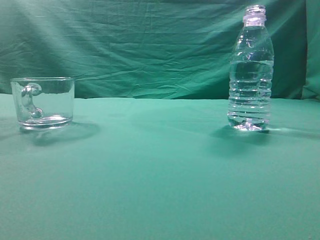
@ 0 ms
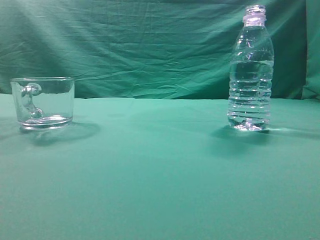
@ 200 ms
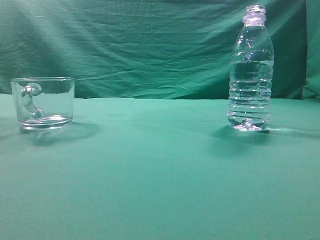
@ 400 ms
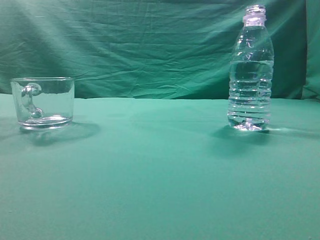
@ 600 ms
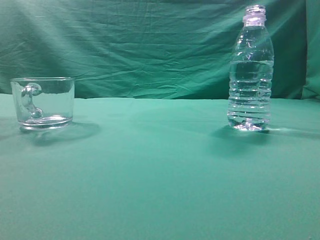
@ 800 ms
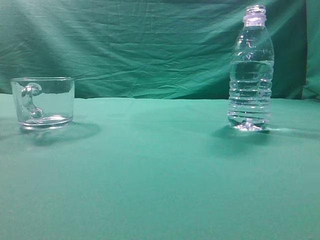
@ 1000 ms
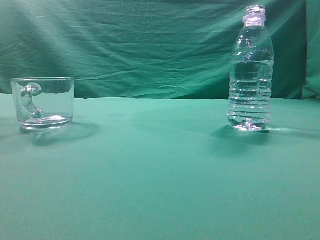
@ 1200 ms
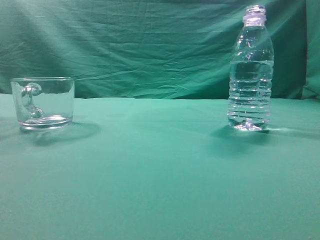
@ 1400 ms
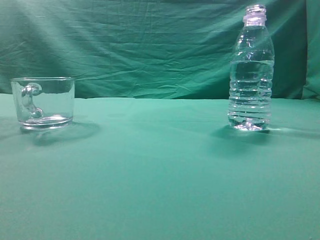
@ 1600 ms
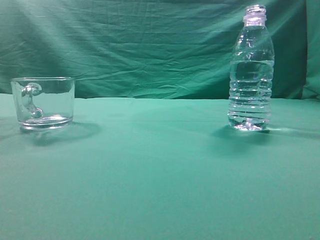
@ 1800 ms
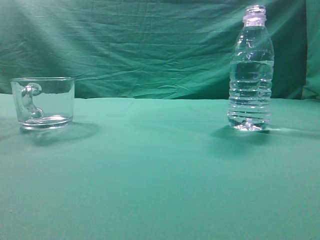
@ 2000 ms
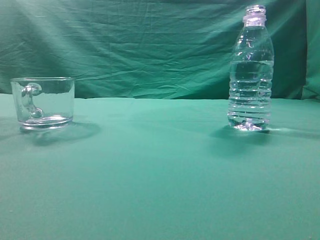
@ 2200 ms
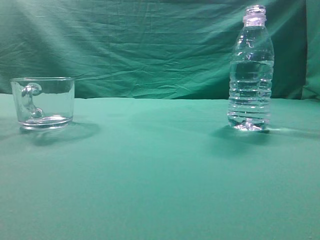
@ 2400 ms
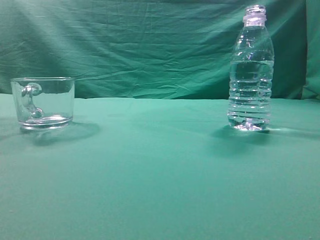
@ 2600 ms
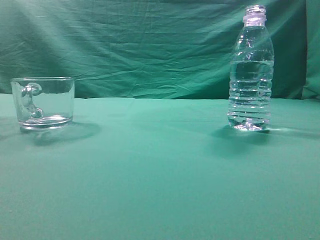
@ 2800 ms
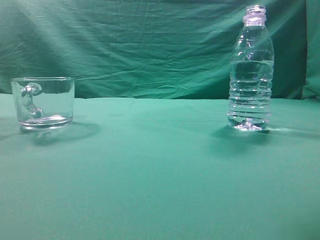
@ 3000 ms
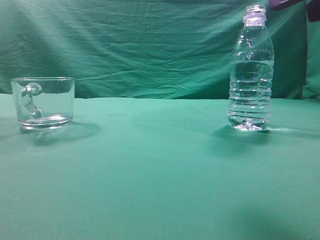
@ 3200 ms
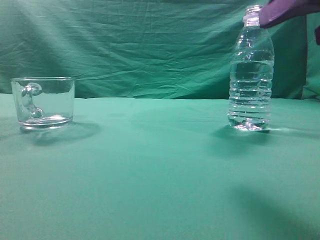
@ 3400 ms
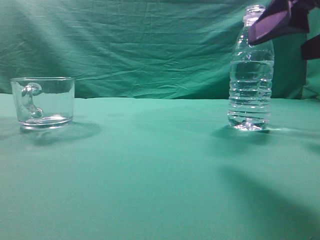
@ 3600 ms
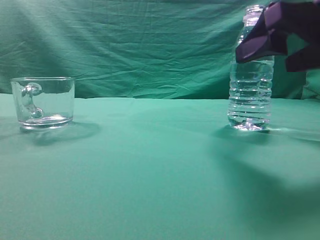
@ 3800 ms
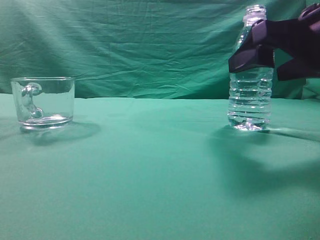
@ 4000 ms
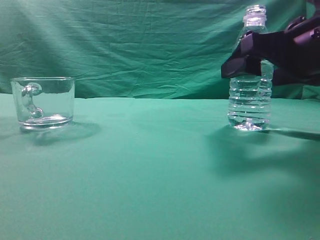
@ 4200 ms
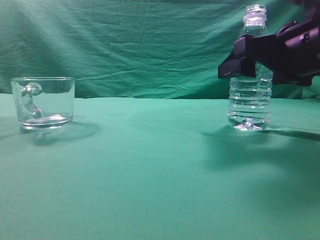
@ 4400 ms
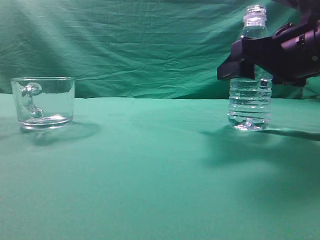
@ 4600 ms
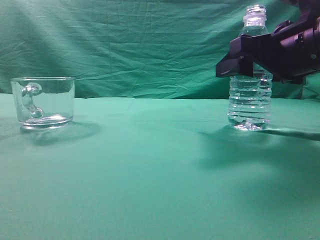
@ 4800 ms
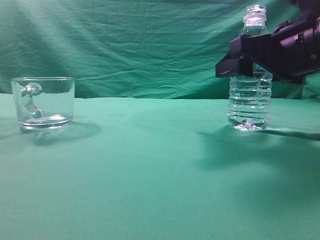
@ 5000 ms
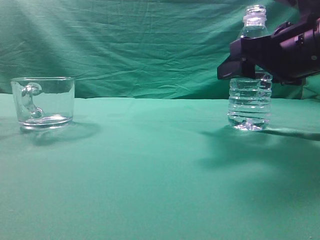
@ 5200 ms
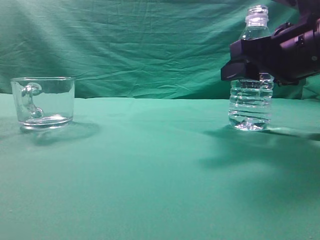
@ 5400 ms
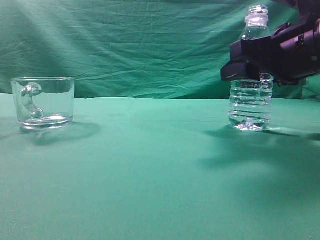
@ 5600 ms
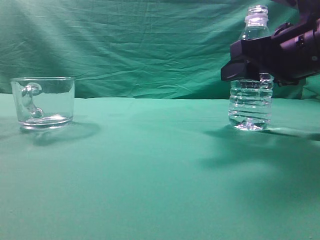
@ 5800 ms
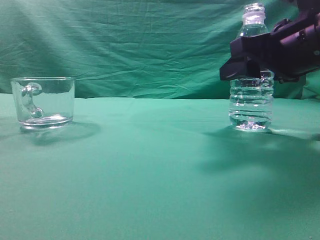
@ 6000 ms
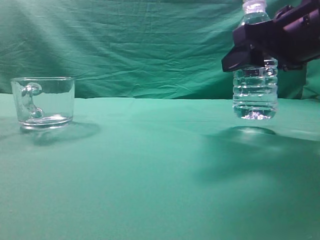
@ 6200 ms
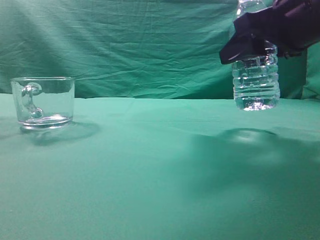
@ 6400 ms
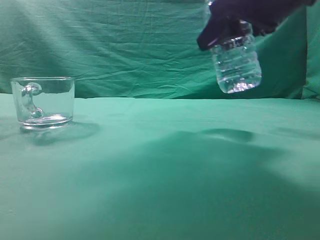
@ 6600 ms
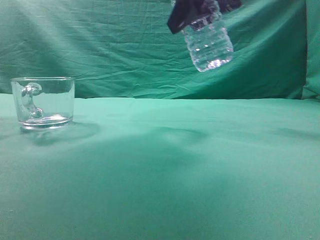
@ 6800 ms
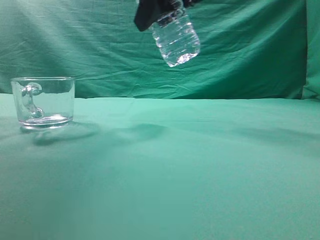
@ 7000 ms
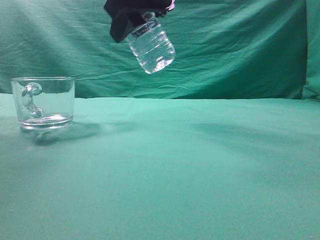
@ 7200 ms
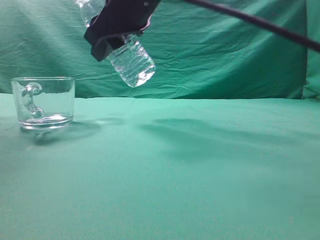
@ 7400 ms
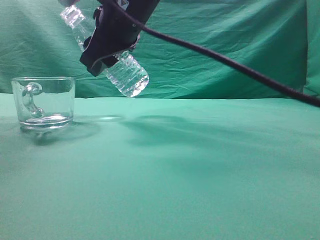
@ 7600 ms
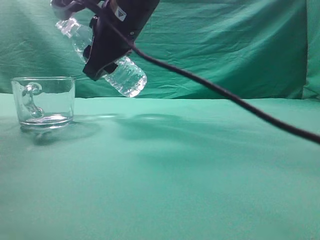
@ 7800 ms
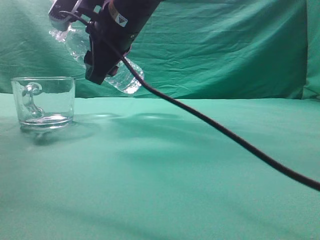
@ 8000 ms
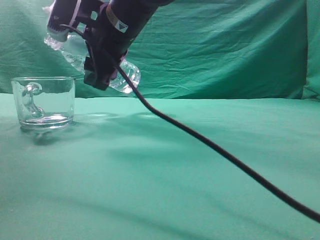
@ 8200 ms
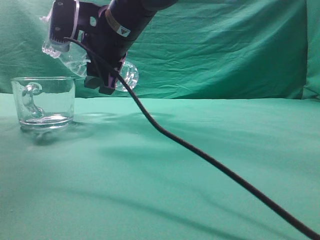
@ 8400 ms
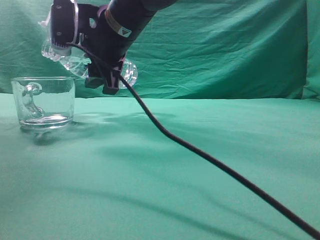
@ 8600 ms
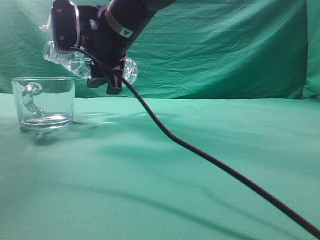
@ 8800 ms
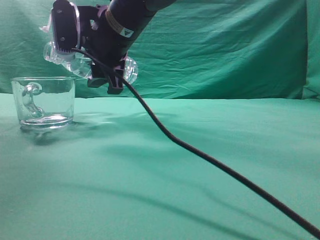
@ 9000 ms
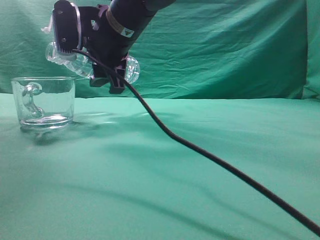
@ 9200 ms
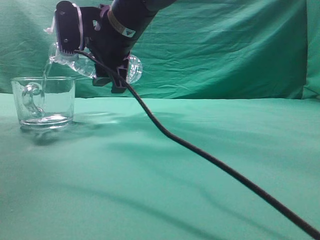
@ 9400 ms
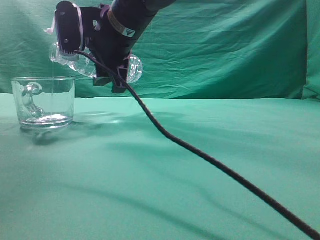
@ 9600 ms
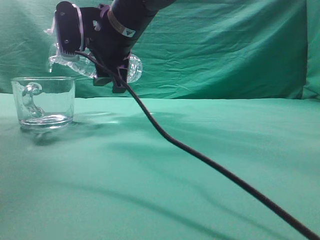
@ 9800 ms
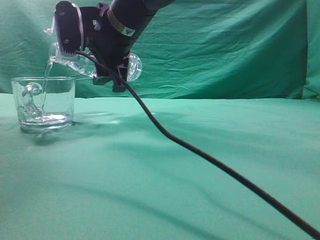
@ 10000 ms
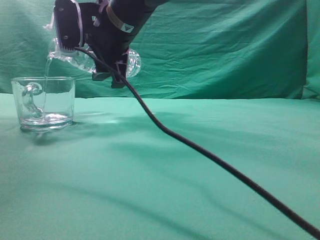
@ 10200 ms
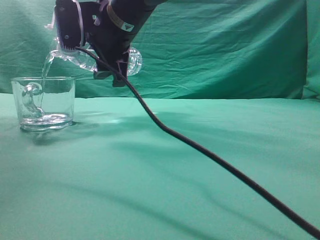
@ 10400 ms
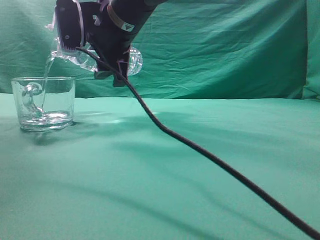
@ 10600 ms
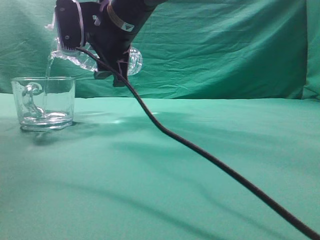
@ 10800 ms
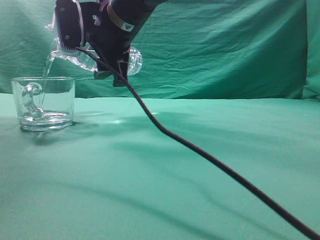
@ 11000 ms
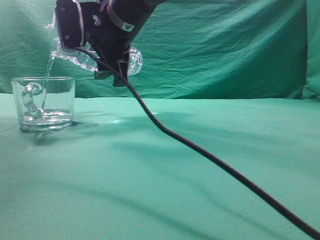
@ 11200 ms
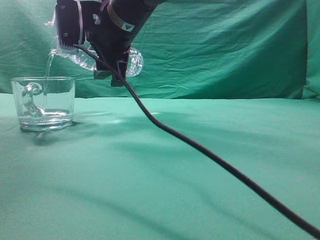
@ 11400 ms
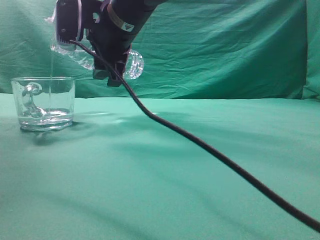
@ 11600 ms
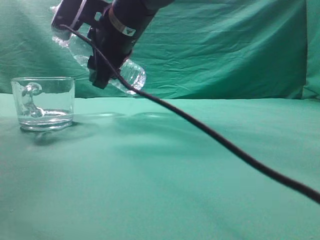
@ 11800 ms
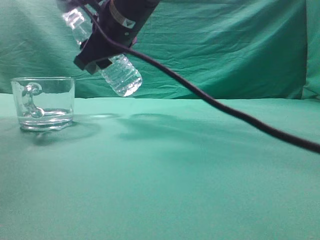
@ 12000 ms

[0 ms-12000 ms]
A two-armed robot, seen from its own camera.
Task of the whole recording: pick up the water bottle and pour the water in it into the glass.
Step, 0 ms to 6600 ms: Grasp the mineral water bottle.
Step, 6800 ms to 12000 ms: Pour water into the teacup.
3000 ms to 4400 ms: The right gripper moves forward and downward, approximately 15 cm, and opens up.
4400 ms to 6000 ms: The grippers move only a little.
6000 ms to 7600 ms: The right gripper goes roughly 25 cm to the left.
9000 ms to 10400 ms: The grippers make only small movements.

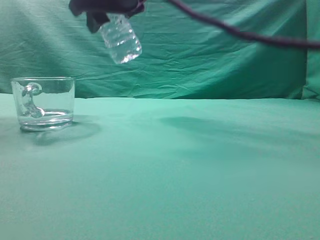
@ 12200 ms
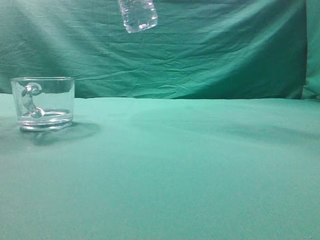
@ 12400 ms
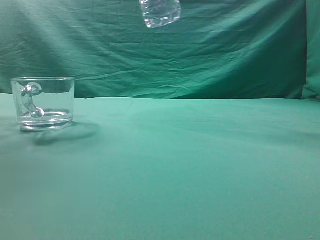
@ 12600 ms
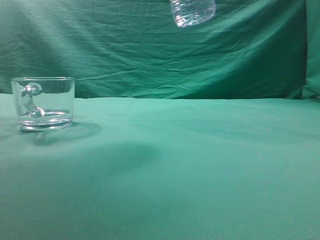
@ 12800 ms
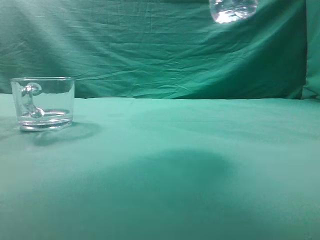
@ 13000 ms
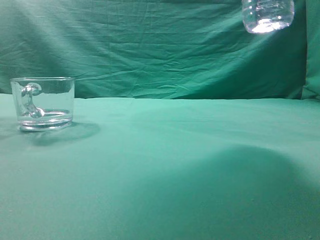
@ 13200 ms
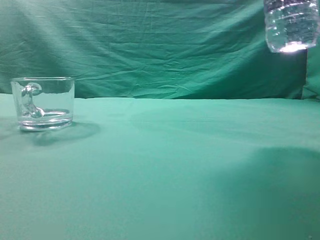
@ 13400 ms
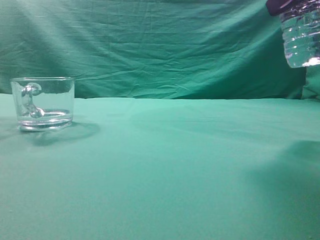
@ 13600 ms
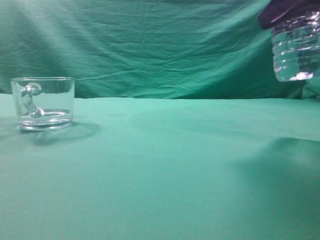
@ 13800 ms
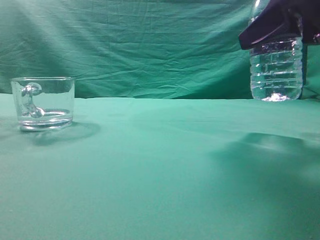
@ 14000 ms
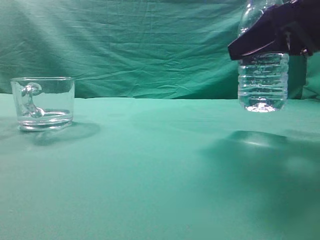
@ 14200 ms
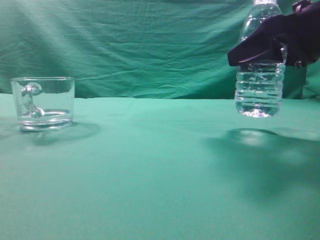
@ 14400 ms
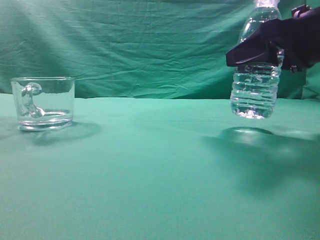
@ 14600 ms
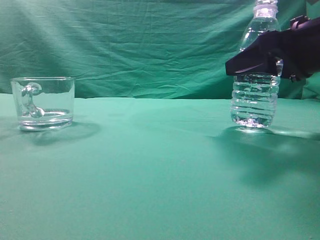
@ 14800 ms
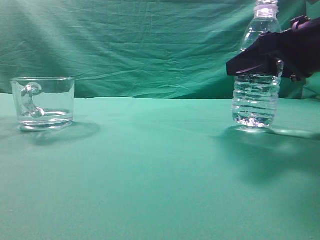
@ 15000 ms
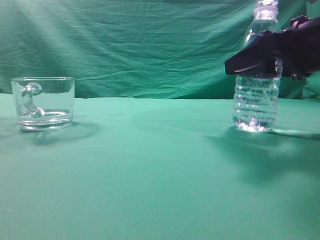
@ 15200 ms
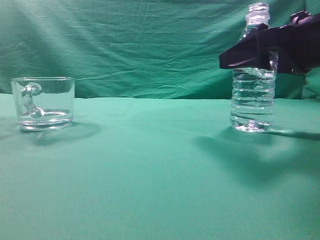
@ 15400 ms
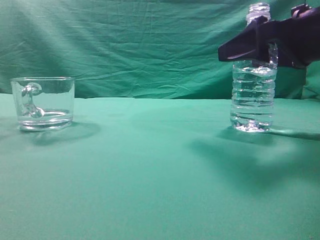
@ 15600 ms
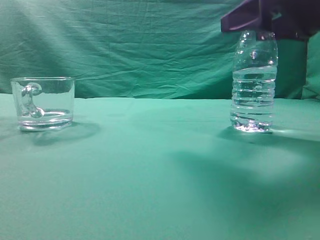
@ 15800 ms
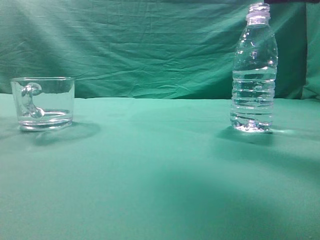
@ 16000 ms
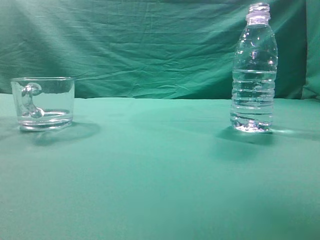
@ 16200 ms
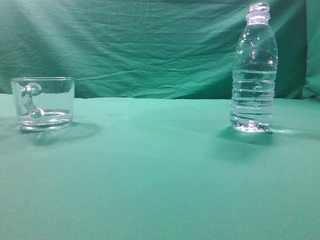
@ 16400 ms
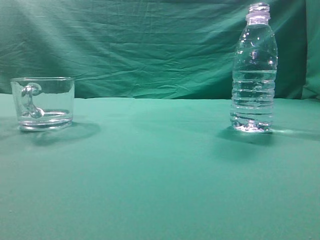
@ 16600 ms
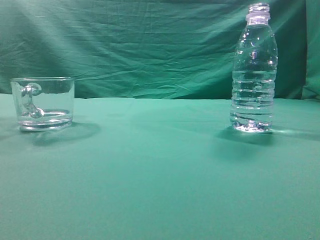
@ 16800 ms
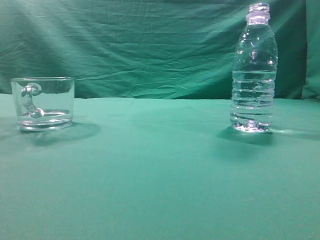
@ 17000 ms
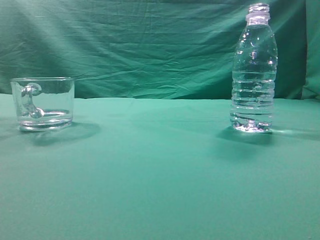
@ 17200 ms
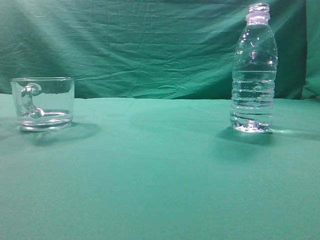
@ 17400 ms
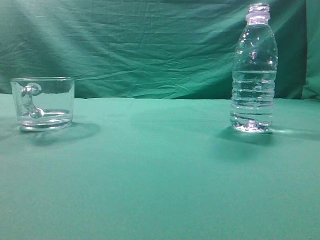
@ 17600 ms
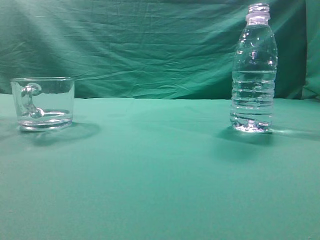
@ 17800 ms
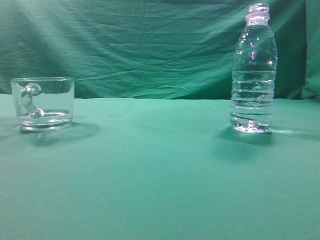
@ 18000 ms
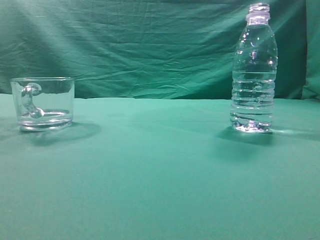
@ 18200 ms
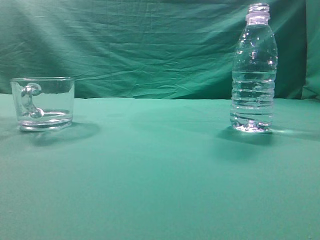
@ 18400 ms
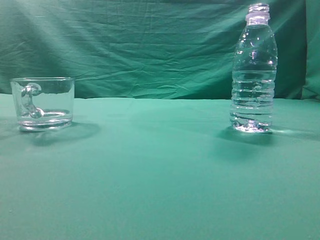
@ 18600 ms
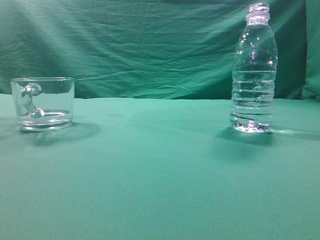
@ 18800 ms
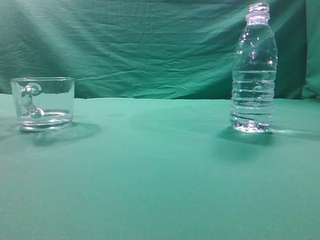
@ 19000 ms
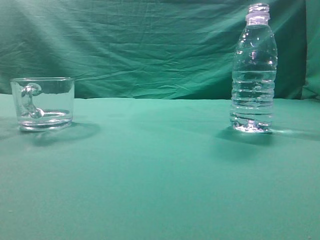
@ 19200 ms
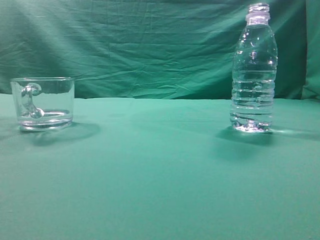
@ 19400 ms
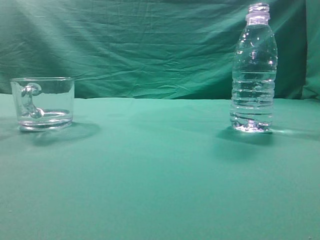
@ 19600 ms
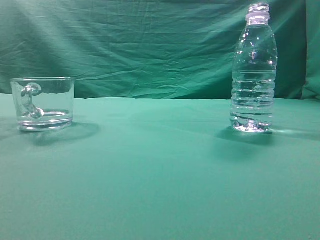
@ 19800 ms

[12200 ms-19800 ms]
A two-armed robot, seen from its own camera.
Task of the whole recording: pick up the water bottle and pour the water in it into the glass.
12200 ms to 13800 ms: The right gripper shifts approximately 30 cm to the right and backward.
13800 ms to 15200 ms: The right gripper goes about 10 cm downward.
15200 ms to 16800 ms: The right gripper is displaced upward and backward by roughly 30 cm, and closes.
